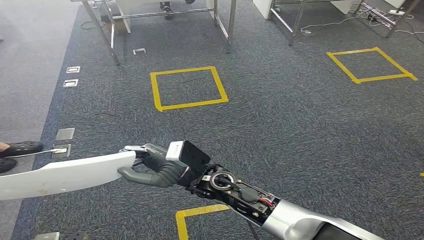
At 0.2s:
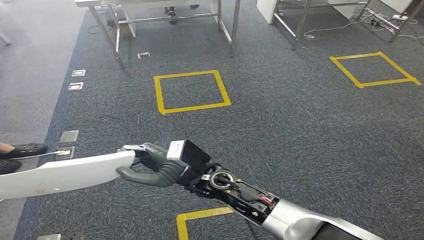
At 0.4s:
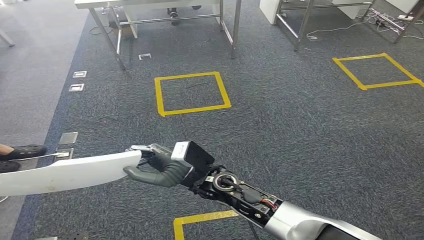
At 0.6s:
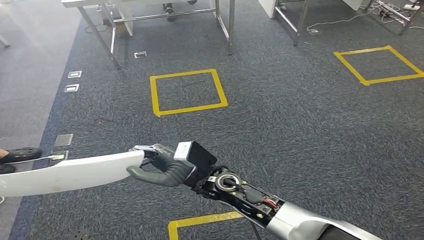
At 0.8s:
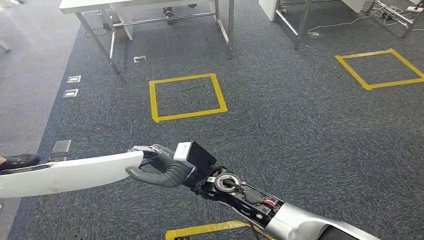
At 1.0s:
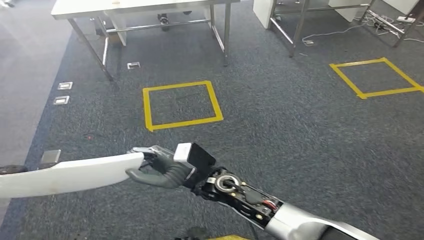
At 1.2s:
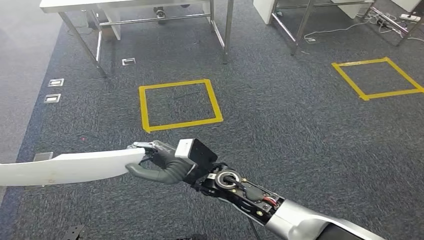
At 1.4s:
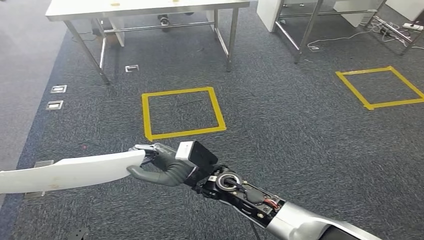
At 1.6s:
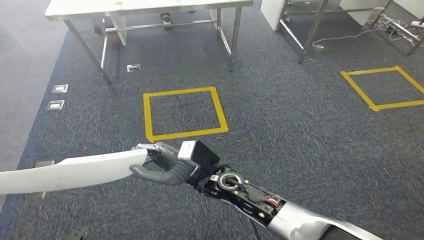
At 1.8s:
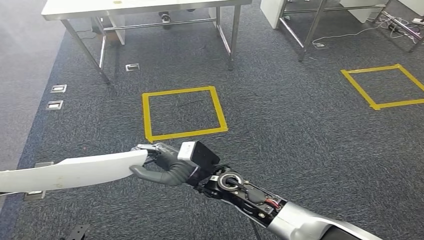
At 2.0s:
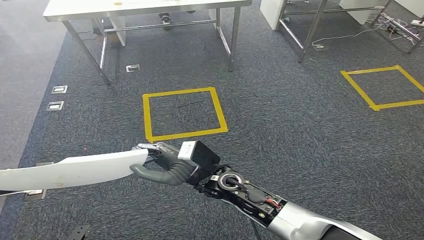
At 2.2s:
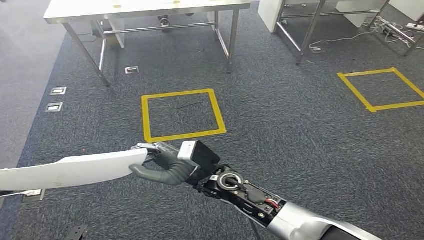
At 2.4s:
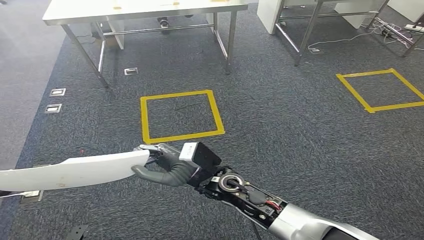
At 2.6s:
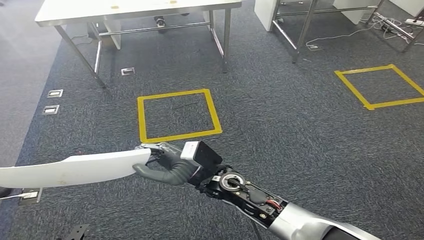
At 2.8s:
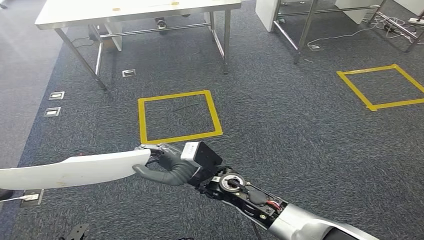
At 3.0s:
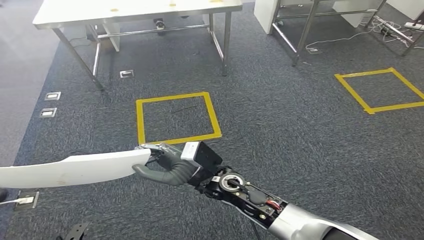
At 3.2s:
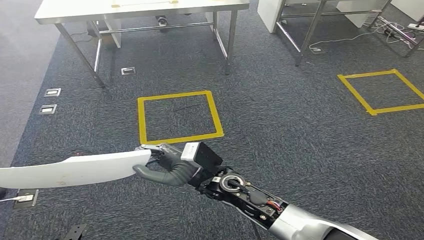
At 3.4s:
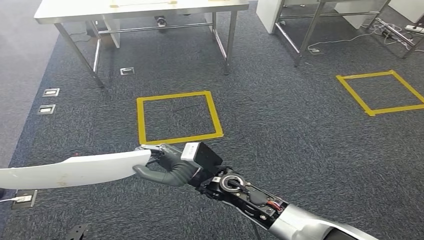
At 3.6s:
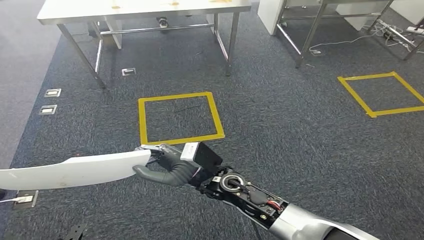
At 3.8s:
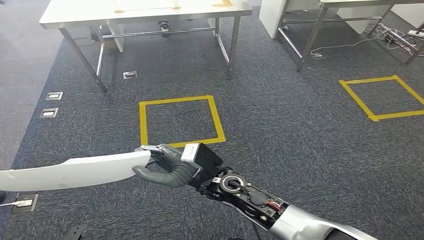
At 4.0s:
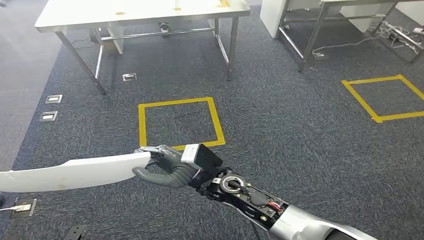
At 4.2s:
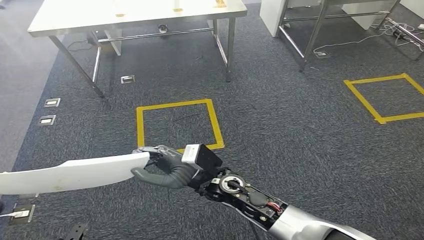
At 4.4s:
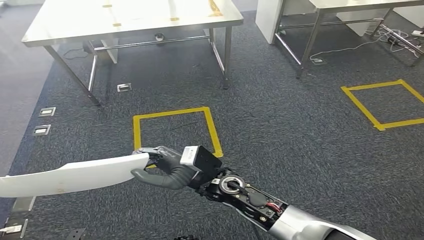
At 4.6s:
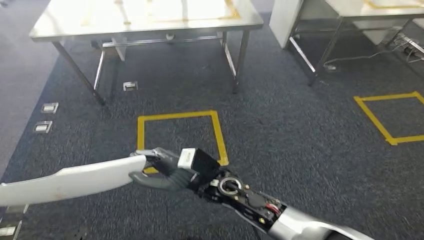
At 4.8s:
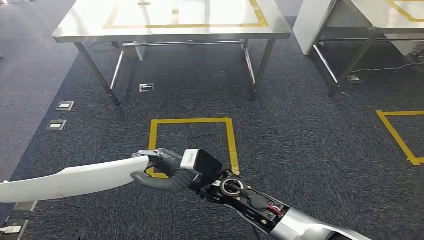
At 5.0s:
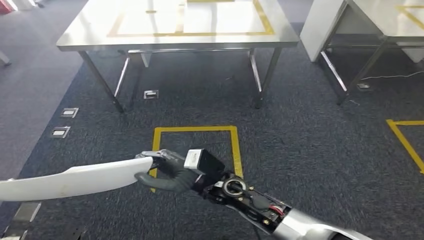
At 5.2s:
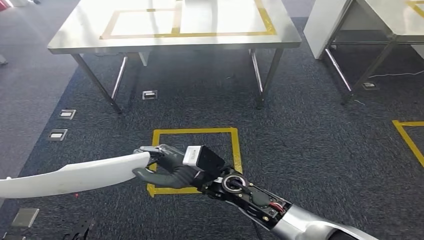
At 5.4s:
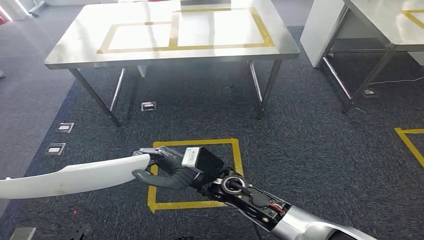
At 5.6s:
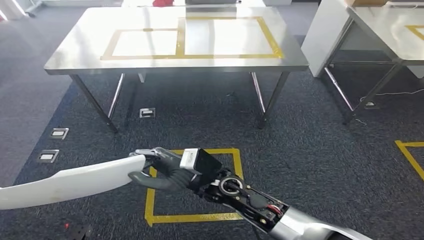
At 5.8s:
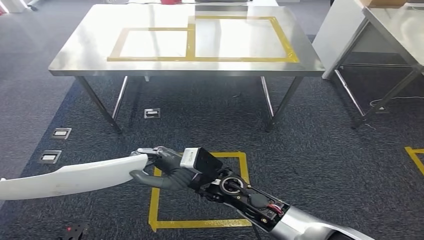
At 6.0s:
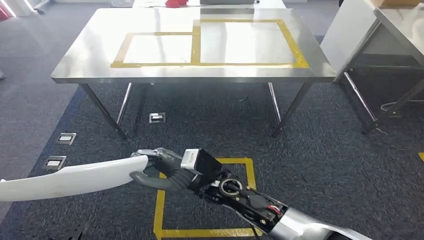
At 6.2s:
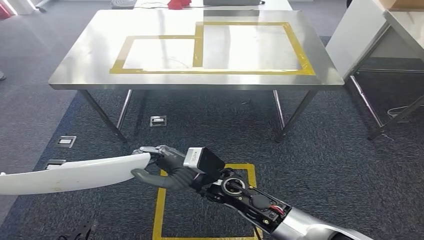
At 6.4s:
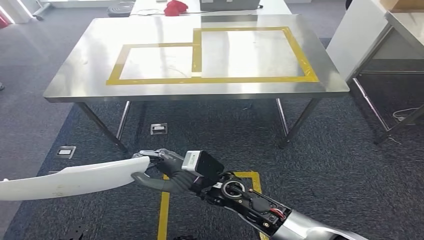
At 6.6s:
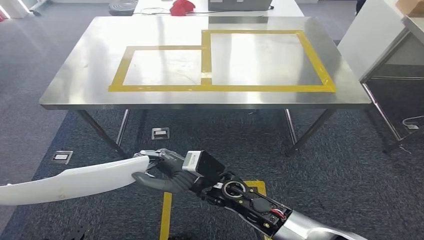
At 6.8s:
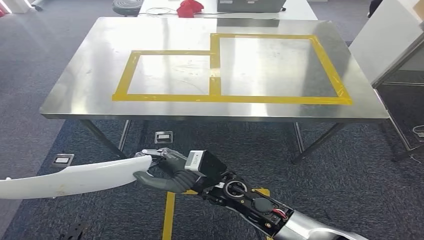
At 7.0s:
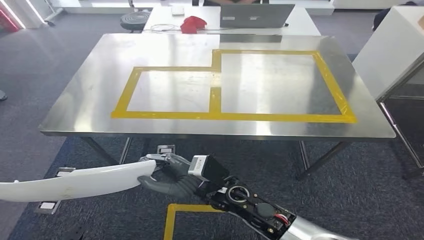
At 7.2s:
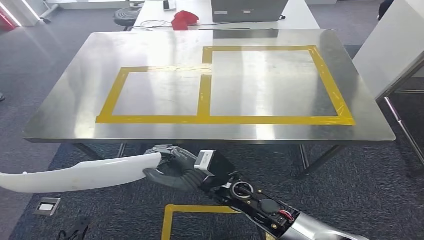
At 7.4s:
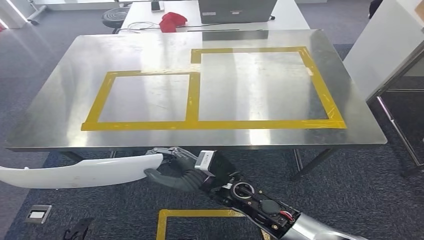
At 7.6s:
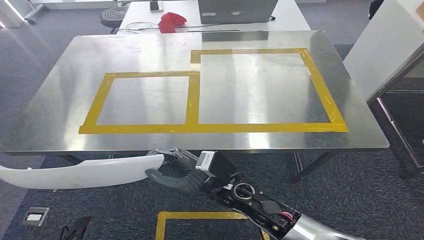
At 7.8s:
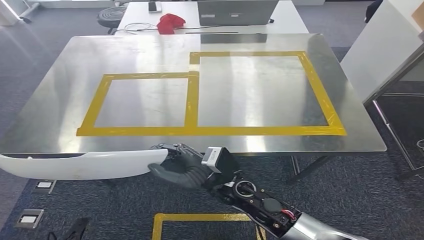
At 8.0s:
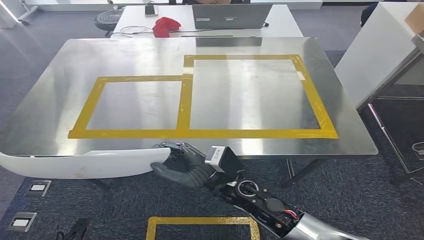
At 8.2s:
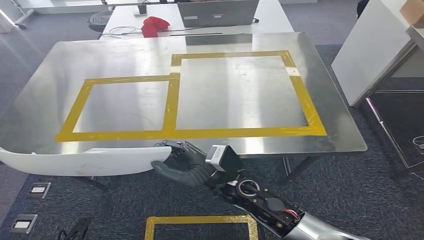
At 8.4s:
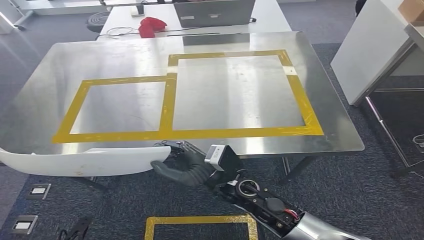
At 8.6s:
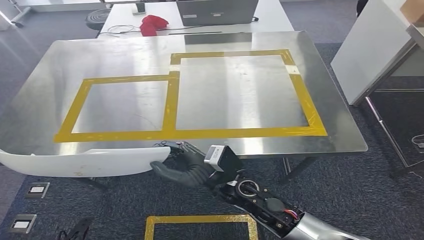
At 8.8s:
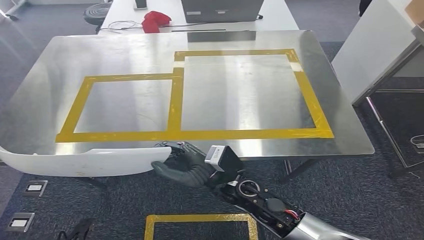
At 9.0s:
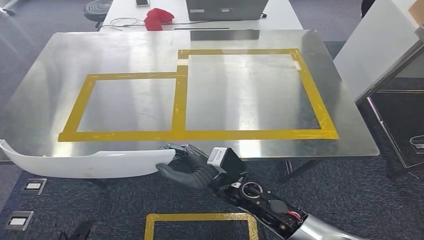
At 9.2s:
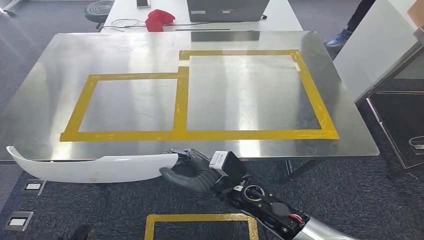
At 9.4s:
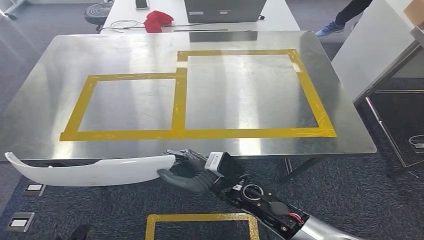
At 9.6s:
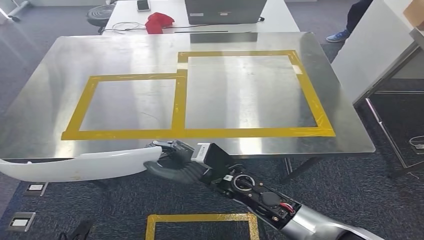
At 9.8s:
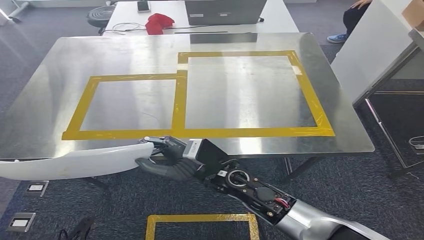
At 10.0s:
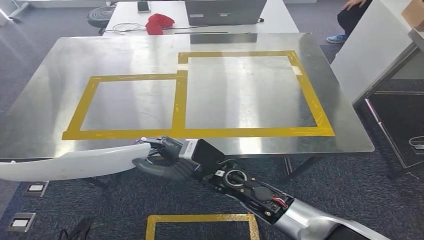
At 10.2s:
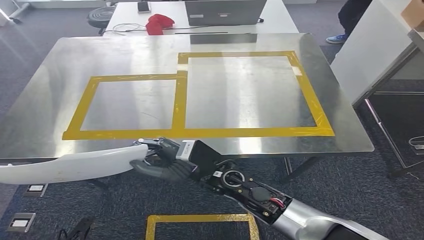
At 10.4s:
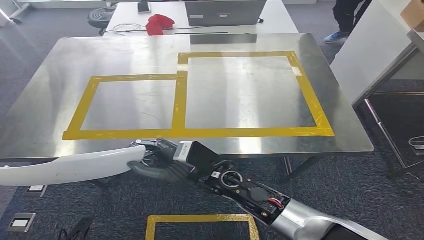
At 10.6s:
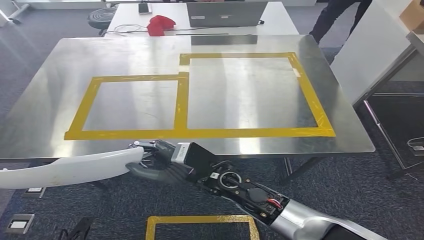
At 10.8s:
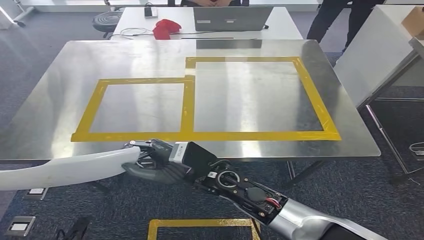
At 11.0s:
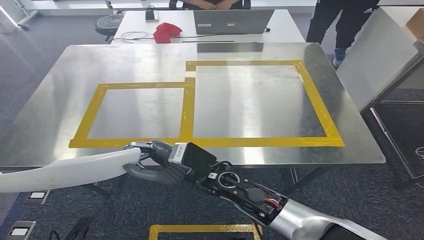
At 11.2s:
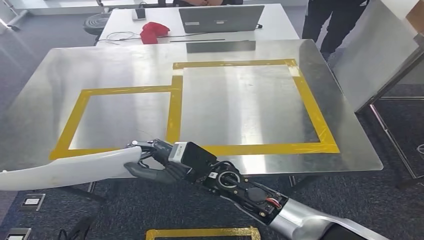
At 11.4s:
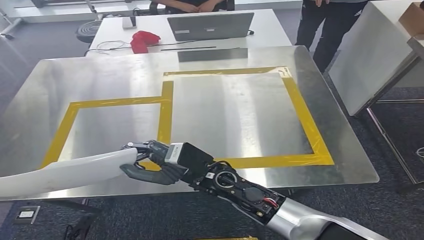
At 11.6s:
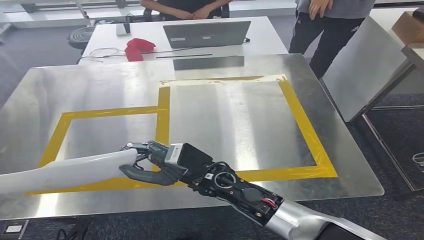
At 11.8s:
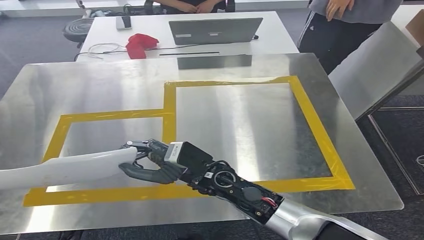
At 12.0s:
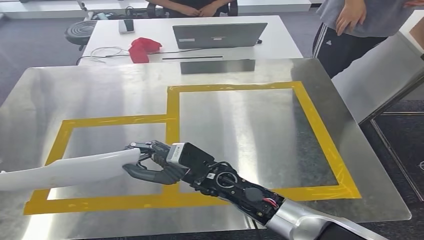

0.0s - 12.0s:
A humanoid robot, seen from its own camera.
Step, 0.0s - 8.8s: Move the small parts to the workbench.
1.6s - 3.0s: Neither hand changes place.
9.0s - 10.4s: The hands move only a little.

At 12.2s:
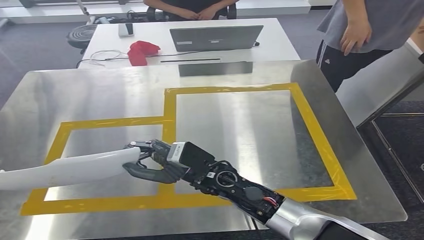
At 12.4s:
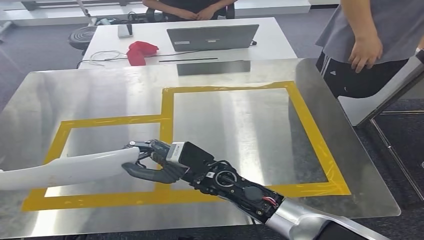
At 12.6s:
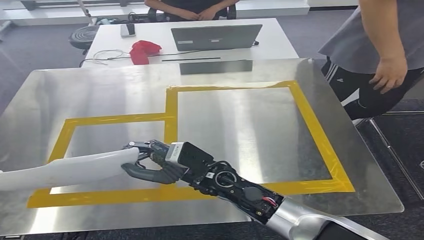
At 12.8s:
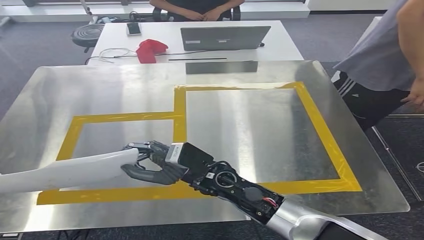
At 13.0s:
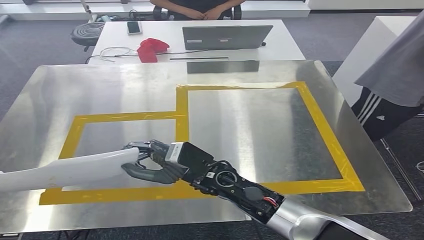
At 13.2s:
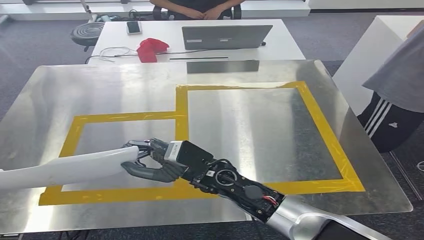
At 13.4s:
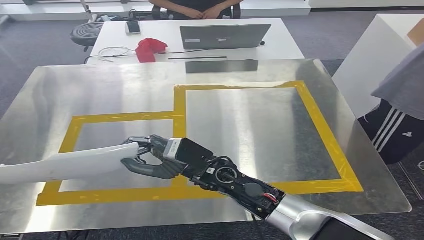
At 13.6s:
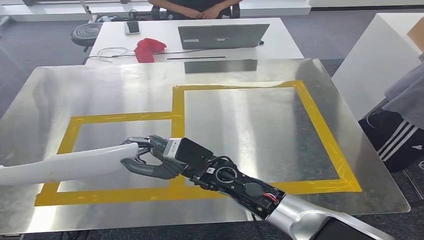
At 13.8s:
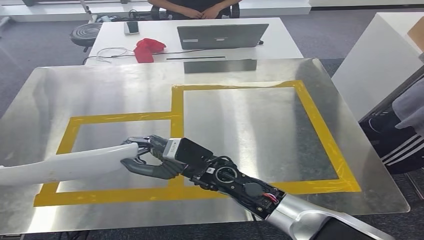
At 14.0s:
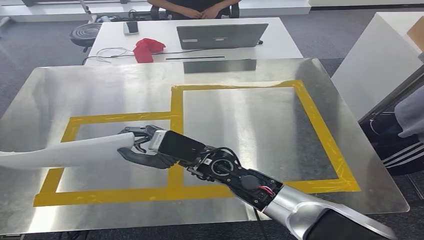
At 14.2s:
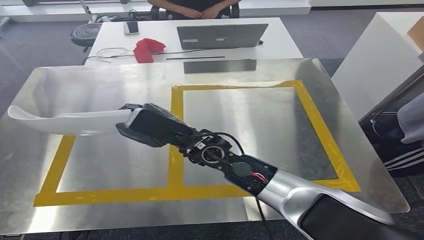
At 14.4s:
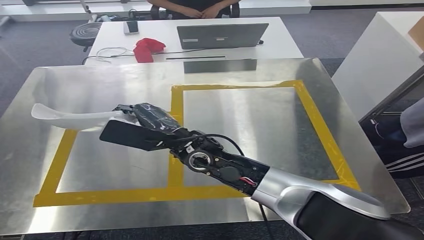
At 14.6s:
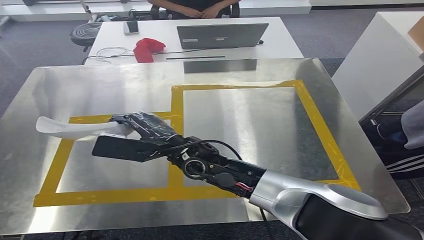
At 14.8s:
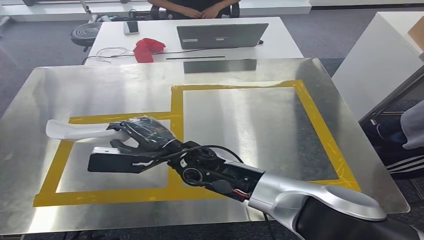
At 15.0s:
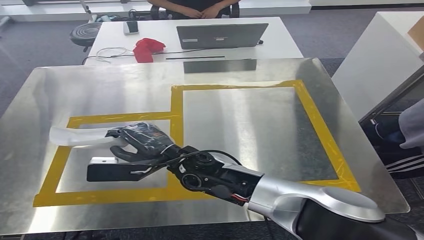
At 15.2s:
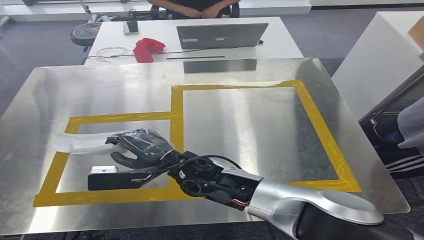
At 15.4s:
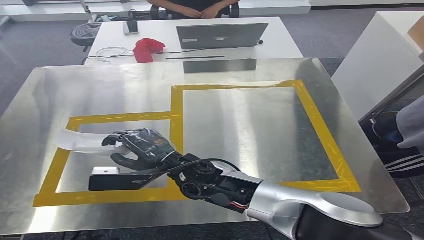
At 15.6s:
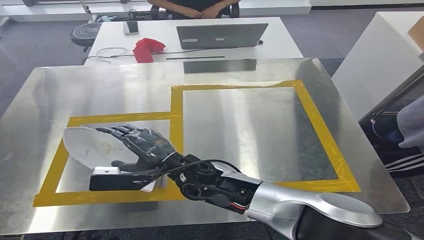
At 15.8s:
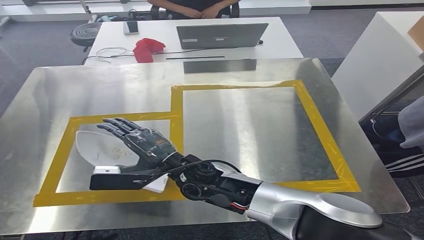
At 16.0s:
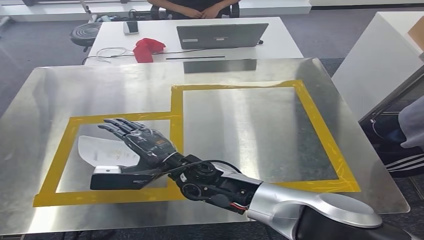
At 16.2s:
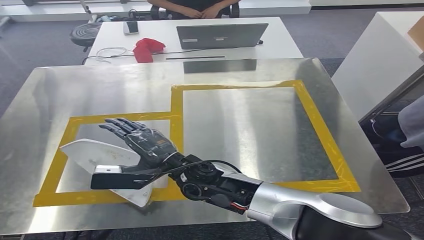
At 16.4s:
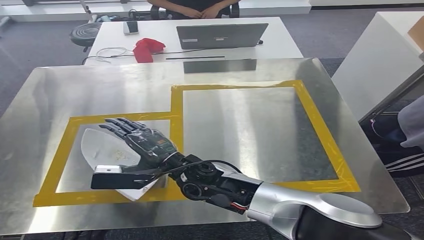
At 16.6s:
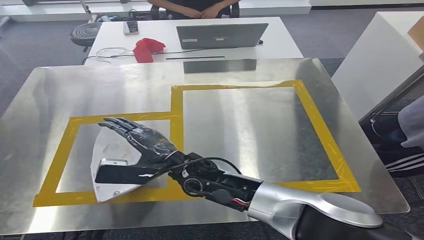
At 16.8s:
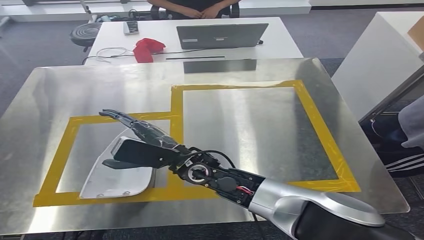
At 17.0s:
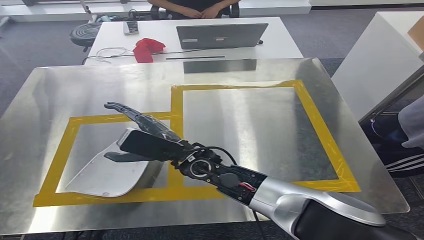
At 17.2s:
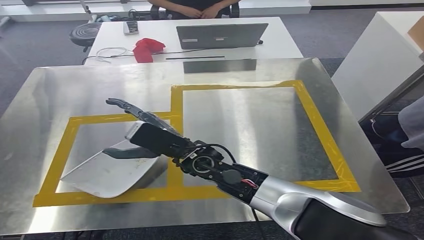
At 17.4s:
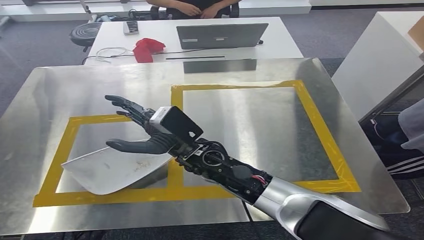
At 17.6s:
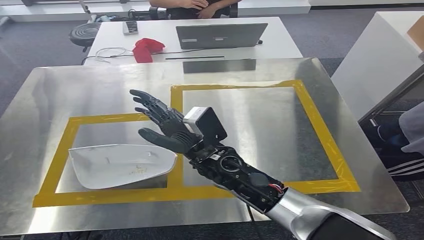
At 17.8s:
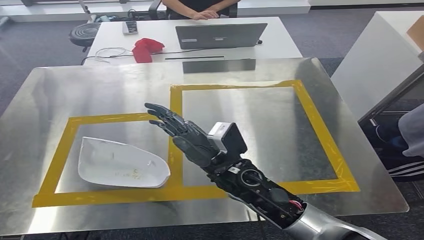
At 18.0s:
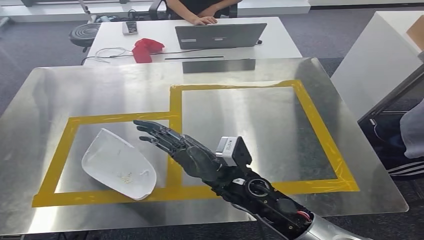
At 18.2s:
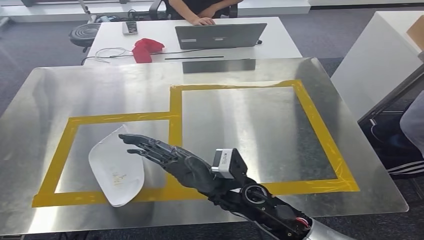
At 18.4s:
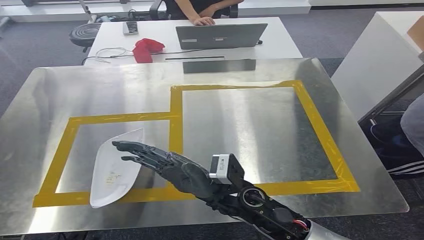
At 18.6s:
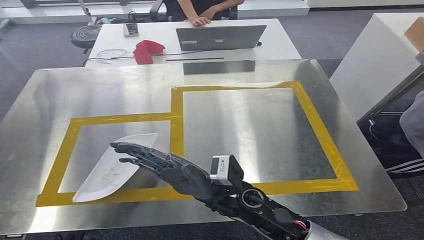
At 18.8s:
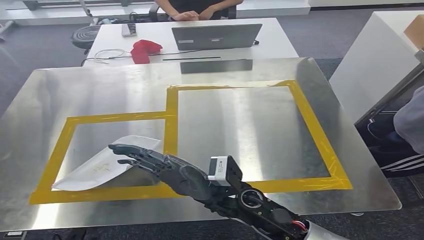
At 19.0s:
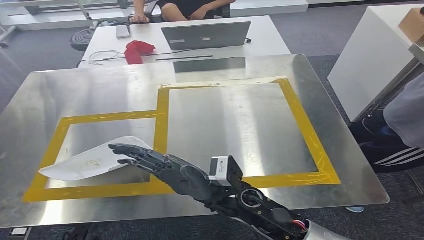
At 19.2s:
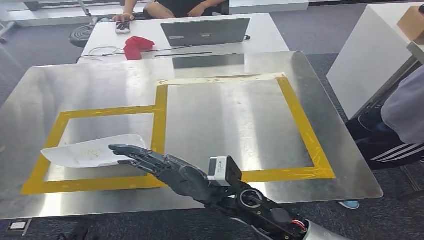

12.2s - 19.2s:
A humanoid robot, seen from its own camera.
Step, 12.2s - 17.6s: Insert the small parts into the corresponding holes on the workbench.
15.0s - 16.4s: The hands stay close to where they were, moving slightly.
16.4s - 17.8s: The right hand moves to the right, approximately 5 cm.
